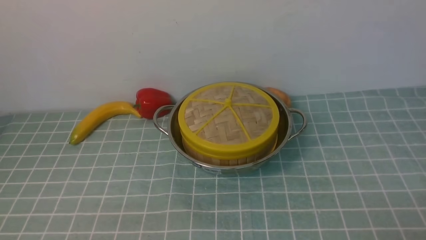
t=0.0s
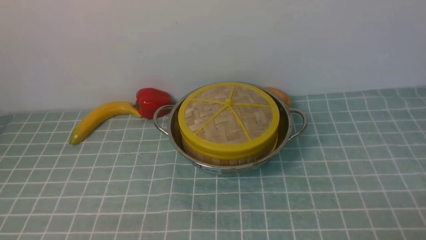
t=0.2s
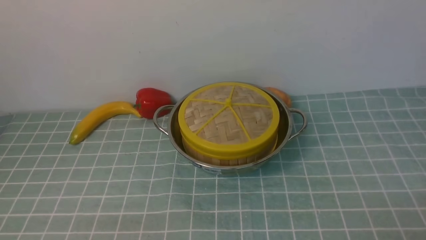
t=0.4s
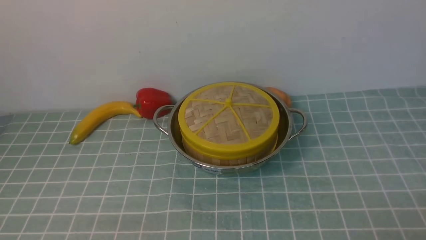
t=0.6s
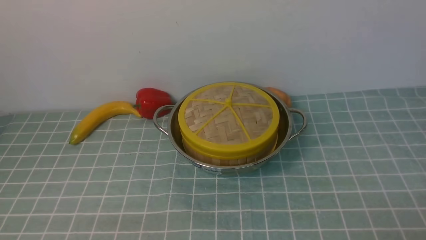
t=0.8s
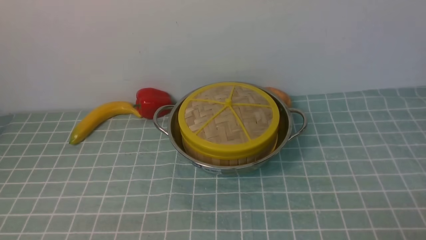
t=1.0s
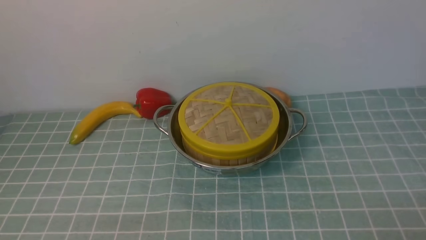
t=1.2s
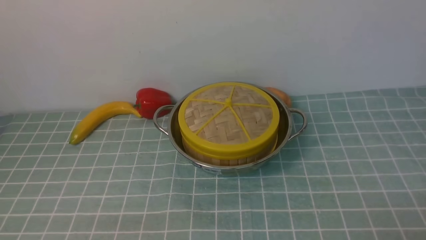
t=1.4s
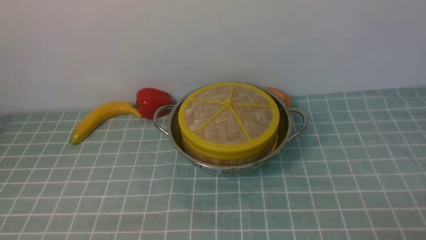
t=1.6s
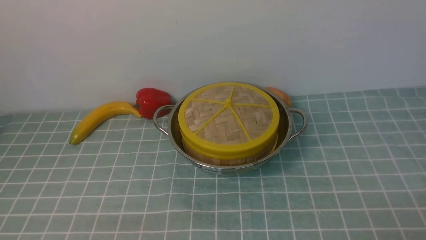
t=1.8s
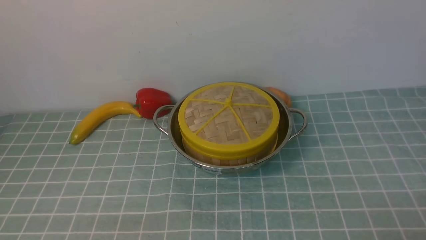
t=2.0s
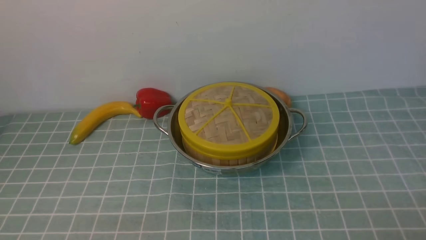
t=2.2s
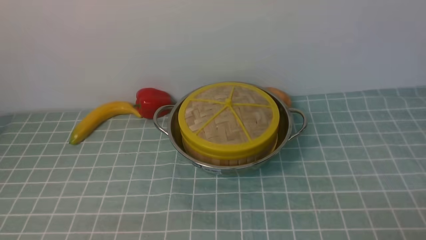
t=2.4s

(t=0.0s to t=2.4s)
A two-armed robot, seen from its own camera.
Task of the whole recording: place the steamer in the pot on the blue tablecloth, and put the lid on the steamer.
t=0.0s - t=2.4s: Both grippers stay about where they are.
